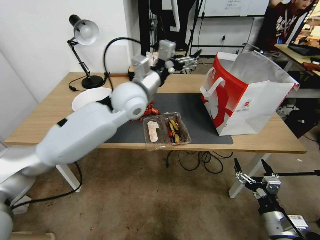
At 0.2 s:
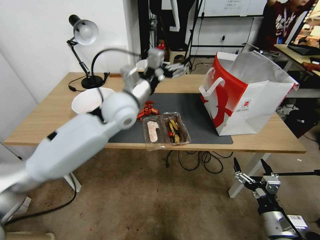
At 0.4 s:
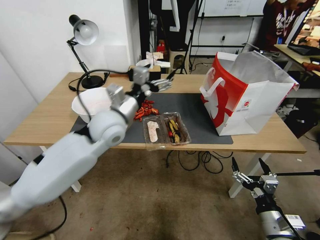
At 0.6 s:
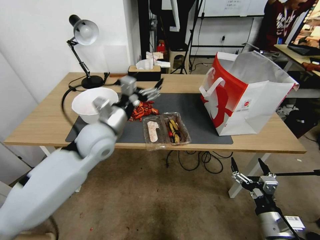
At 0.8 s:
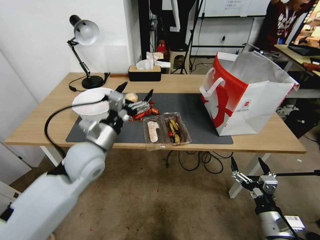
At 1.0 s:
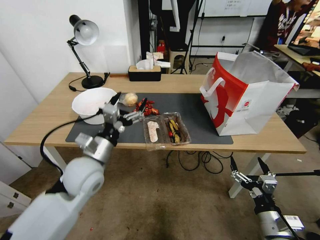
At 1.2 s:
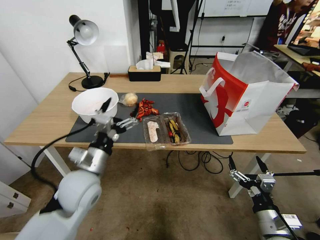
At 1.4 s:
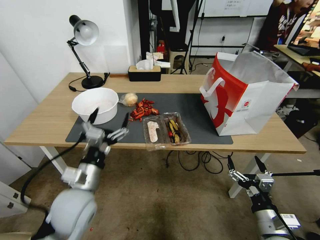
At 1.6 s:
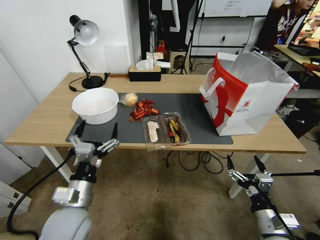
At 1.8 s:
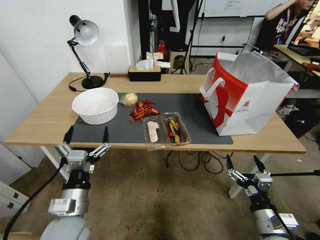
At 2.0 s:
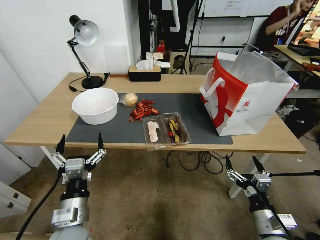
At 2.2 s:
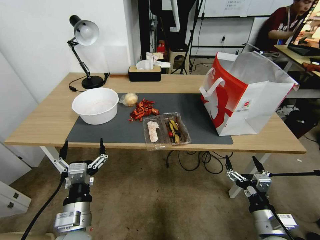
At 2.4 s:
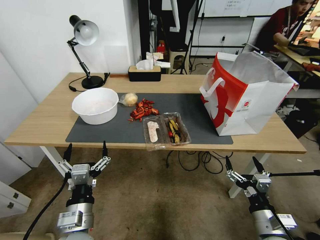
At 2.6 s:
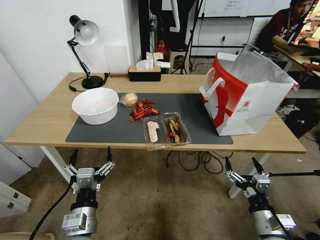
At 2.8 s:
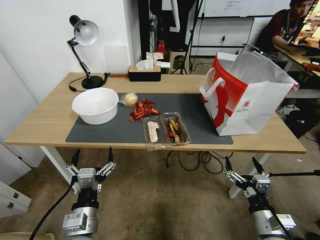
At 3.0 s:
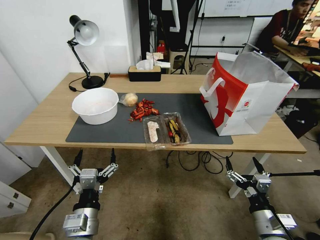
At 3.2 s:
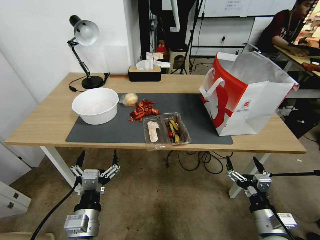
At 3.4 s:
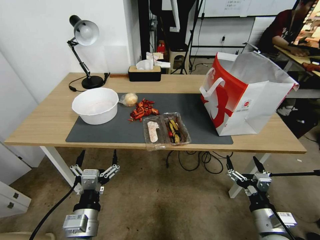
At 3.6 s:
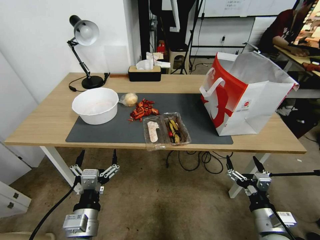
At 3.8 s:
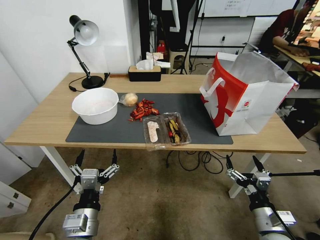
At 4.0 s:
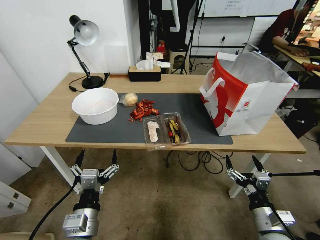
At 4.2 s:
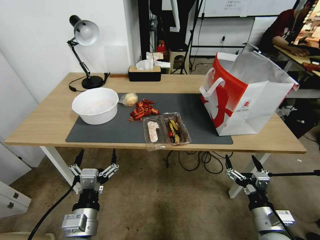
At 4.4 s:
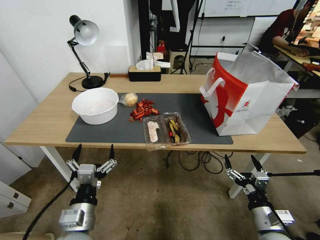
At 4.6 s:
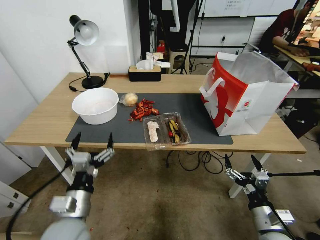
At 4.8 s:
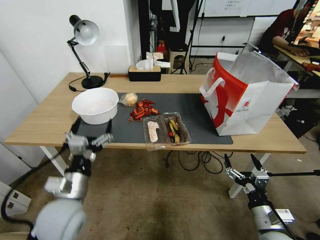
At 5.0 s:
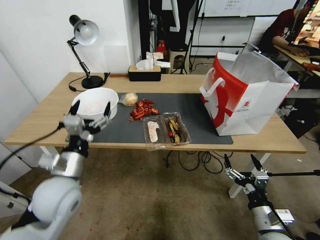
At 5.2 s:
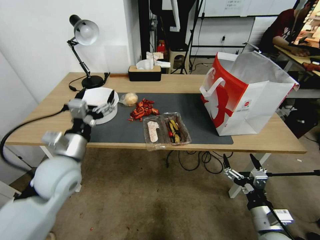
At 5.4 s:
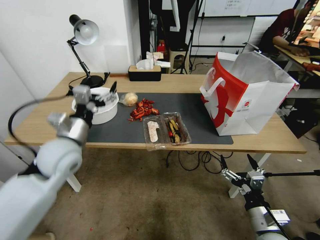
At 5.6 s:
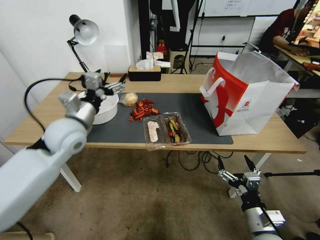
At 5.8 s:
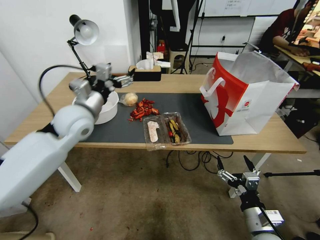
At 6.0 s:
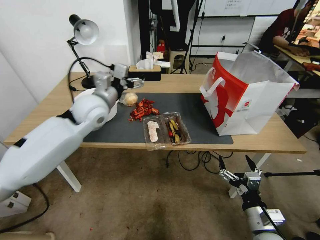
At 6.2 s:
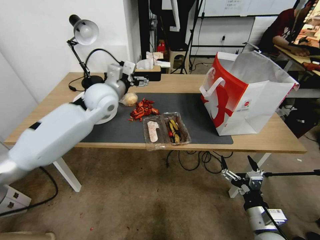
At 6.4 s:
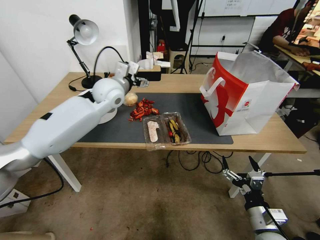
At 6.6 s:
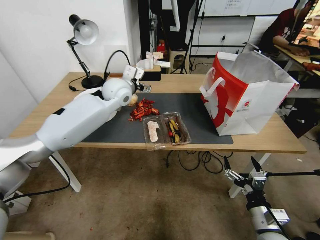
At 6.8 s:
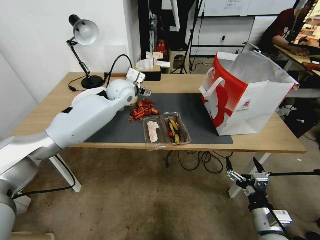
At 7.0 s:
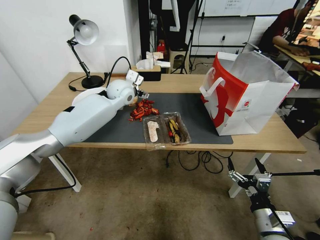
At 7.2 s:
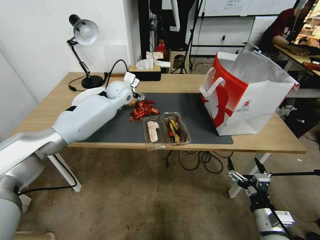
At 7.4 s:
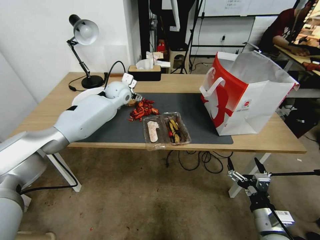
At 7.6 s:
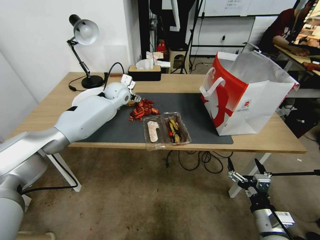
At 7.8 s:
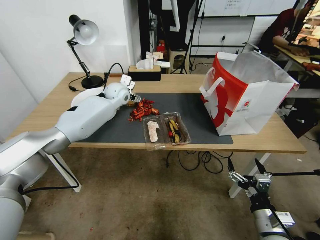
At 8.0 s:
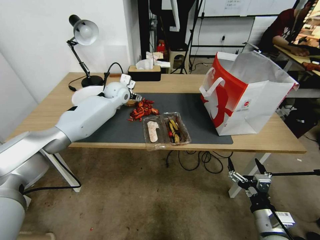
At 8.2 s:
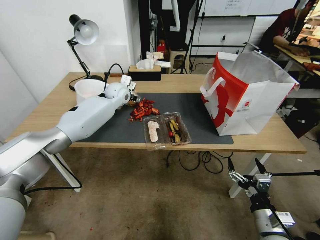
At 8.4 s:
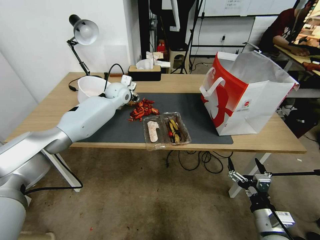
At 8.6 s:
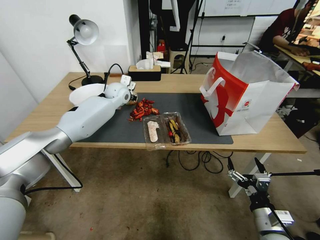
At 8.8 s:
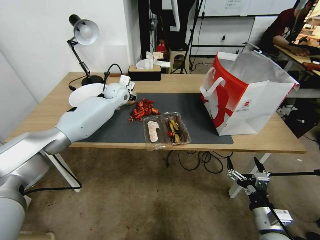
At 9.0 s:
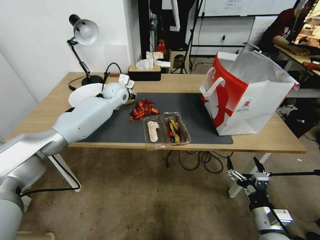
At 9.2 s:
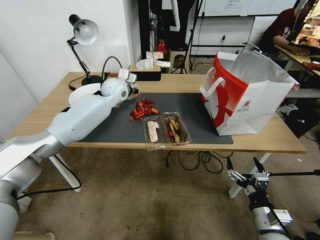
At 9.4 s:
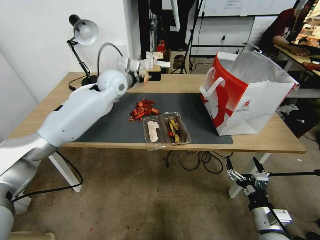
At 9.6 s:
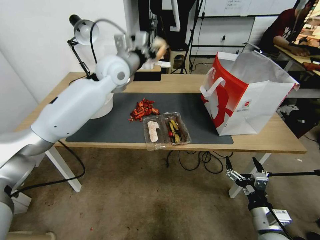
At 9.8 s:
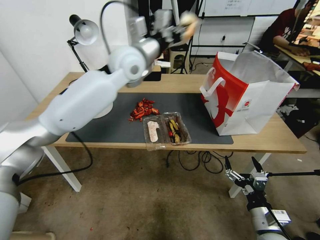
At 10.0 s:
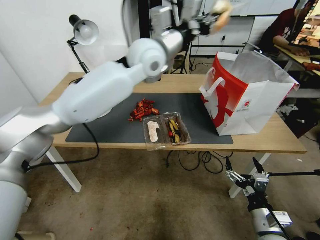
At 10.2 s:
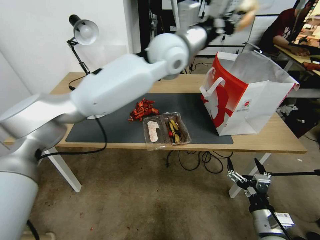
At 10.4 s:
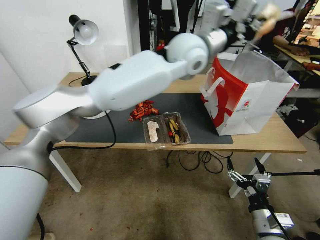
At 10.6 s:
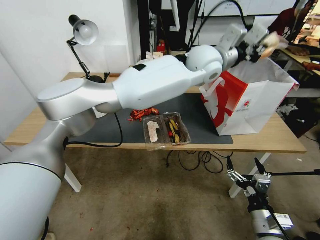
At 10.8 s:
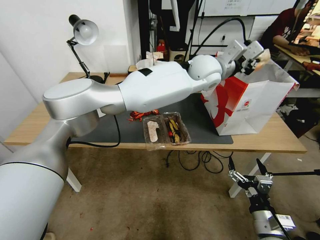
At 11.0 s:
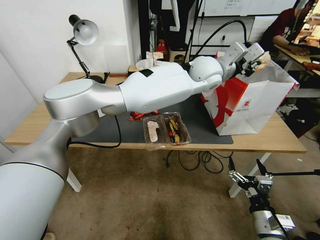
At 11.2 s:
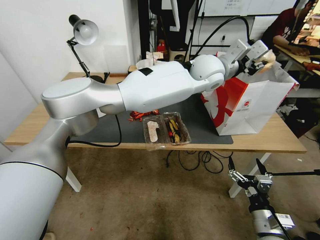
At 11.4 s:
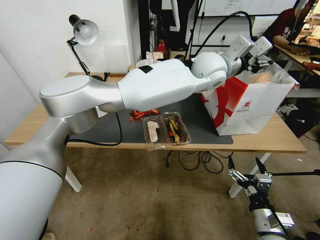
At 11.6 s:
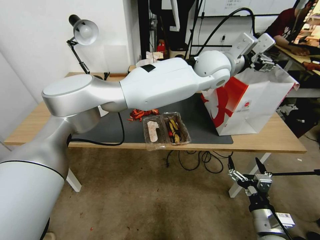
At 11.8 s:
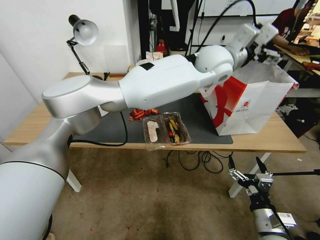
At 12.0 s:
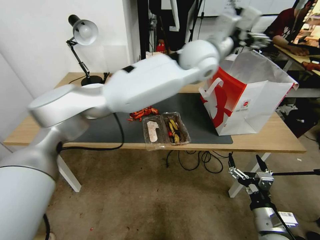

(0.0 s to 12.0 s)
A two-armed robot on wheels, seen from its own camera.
0.0 s - 1.6 s: The left gripper heads backward, downward and to the left, covering roughly 35 cm.
1.6 s - 3.0 s: The left gripper heads backward, covering about 5 cm.
3.0 s - 4.4 s: Both grippers stay about where they are.
4.4 s - 6.0 s: The left gripper shifts approximately 35 cm forward and upward.
6.0 s - 7.6 s: The left gripper goes about 15 cm forward.
7.6 s - 9.0 s: The left gripper closes.
9.0 s - 10.4 s: The left gripper goes some 35 cm to the right, upward and backward.
10.4 s - 12.0 s: The left gripper opens.

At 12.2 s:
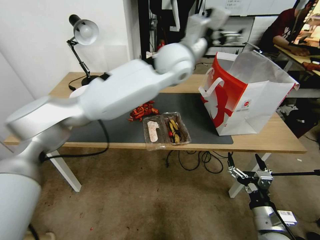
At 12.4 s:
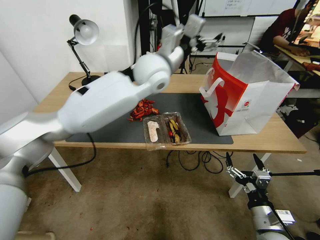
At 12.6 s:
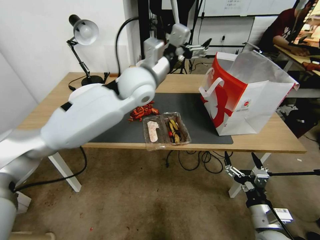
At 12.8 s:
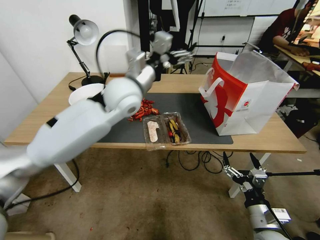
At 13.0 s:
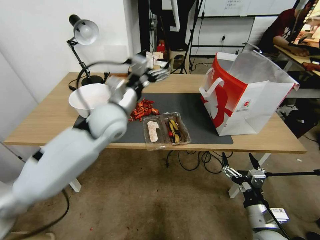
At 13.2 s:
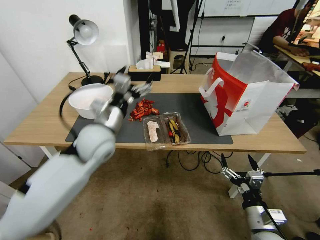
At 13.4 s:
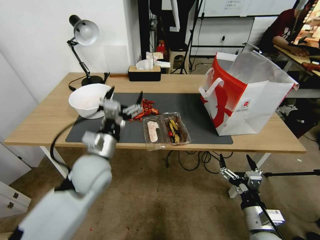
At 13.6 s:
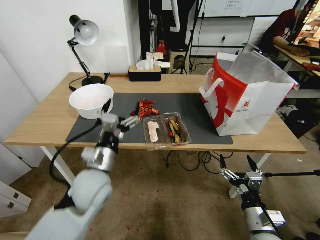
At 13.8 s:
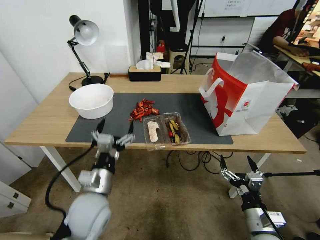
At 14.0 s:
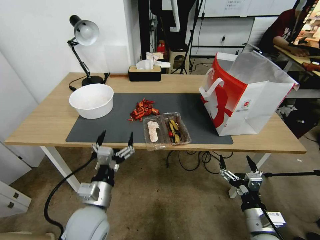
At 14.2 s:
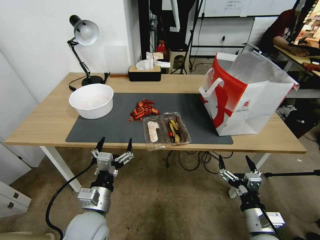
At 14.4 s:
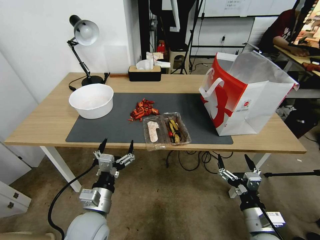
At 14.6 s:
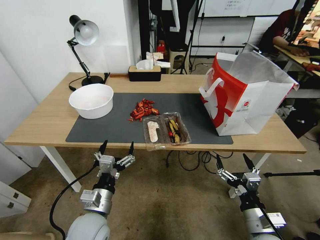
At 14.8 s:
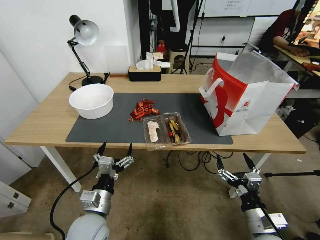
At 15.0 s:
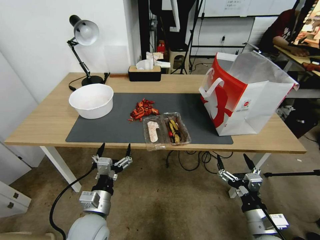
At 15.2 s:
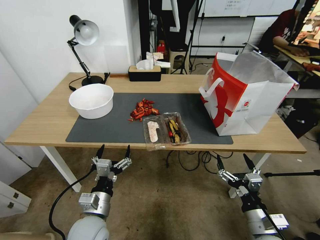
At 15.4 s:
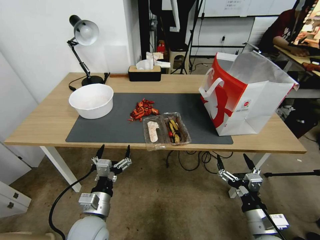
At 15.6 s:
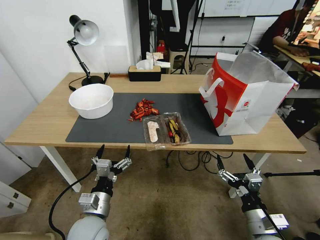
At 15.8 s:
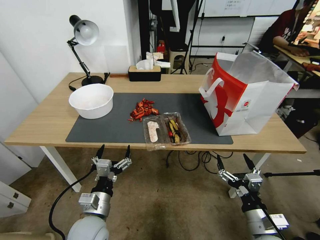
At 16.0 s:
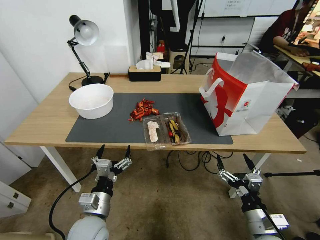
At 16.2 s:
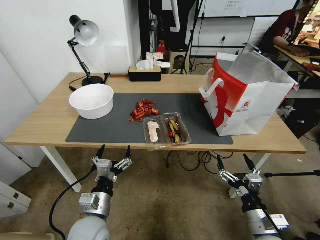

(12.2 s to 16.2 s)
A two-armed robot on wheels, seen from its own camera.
12.2 s - 13.6 s: The left gripper is displaced downward, backward and to the left by roughly 40 cm.
13.6 s - 14.8 s: The left gripper shifts some 10 cm downward and backward.
14.8 s - 16.2 s: Both grippers stay about where they are.

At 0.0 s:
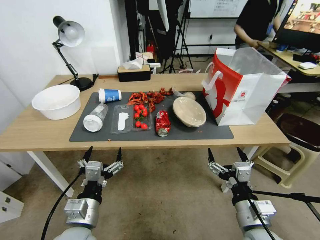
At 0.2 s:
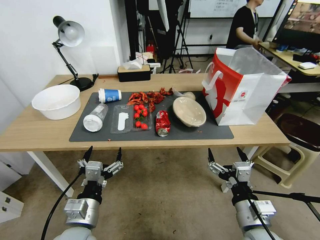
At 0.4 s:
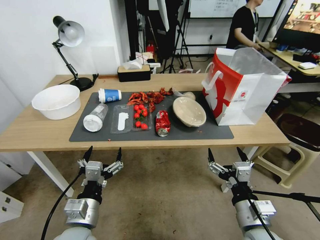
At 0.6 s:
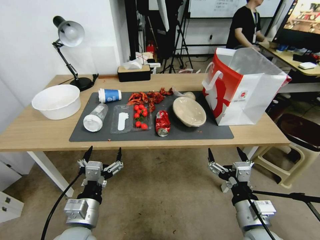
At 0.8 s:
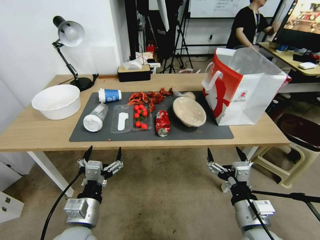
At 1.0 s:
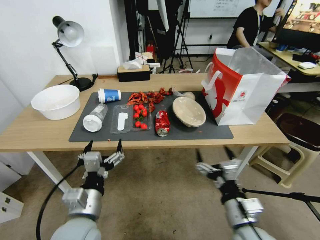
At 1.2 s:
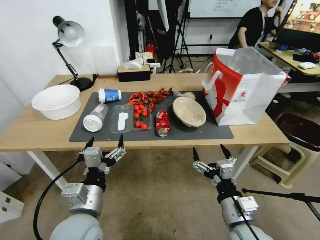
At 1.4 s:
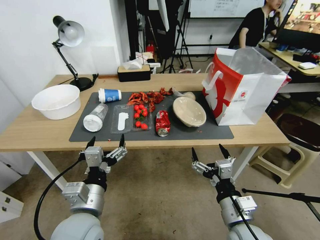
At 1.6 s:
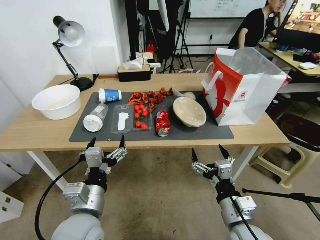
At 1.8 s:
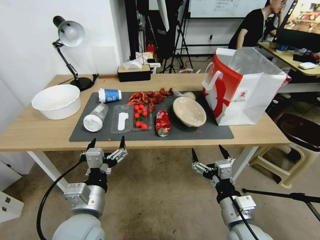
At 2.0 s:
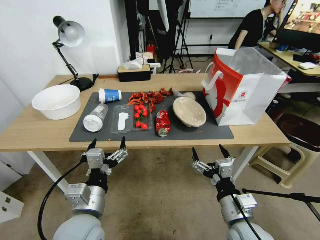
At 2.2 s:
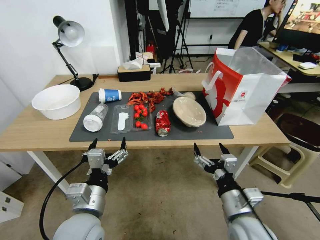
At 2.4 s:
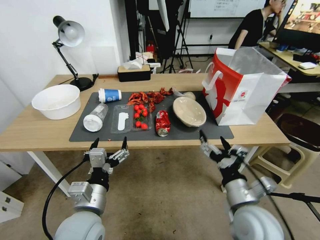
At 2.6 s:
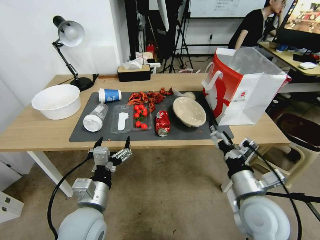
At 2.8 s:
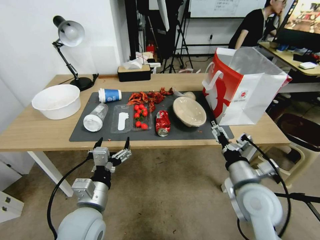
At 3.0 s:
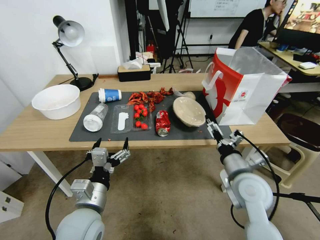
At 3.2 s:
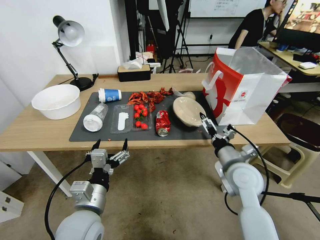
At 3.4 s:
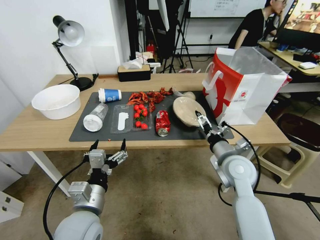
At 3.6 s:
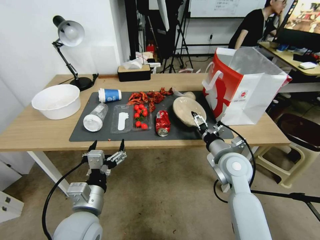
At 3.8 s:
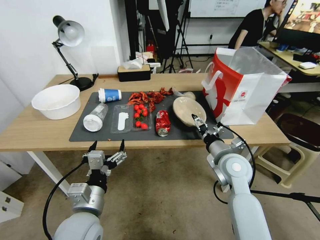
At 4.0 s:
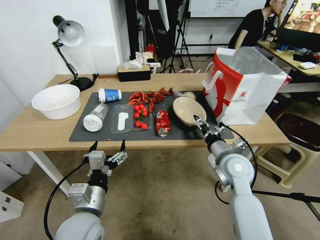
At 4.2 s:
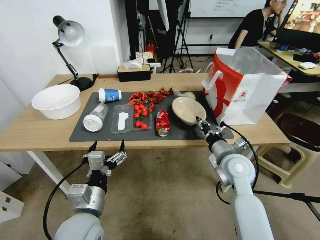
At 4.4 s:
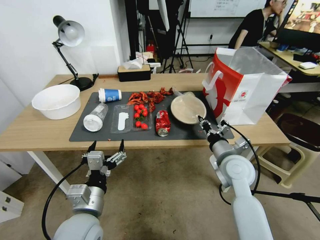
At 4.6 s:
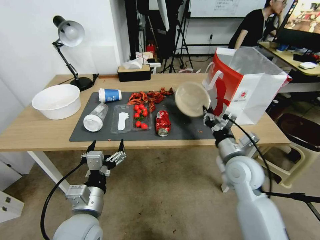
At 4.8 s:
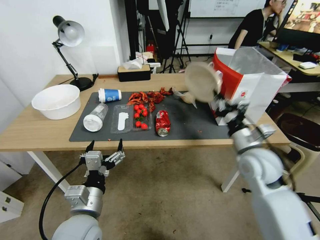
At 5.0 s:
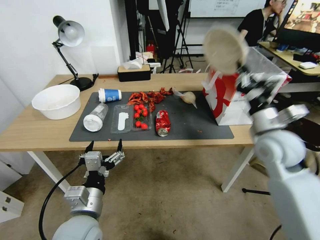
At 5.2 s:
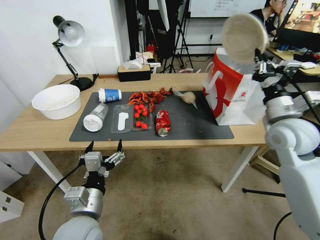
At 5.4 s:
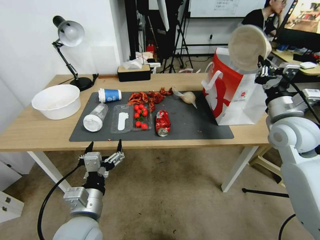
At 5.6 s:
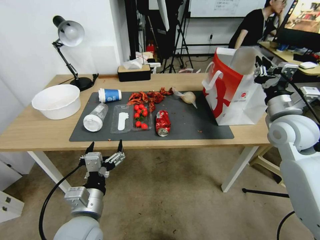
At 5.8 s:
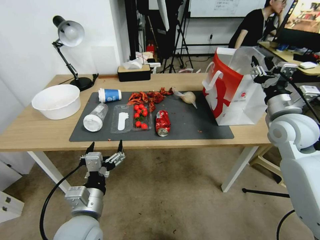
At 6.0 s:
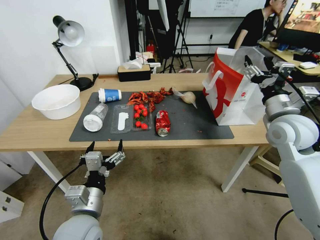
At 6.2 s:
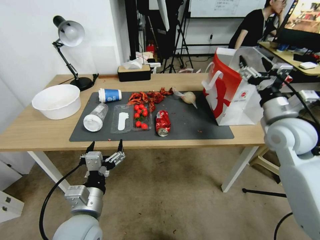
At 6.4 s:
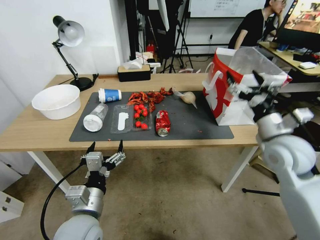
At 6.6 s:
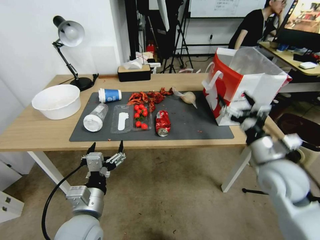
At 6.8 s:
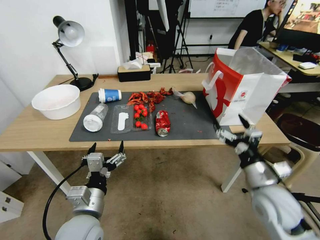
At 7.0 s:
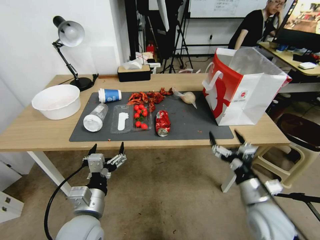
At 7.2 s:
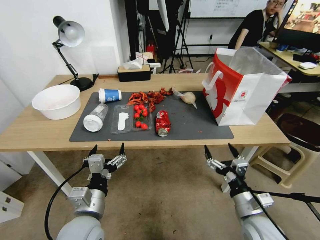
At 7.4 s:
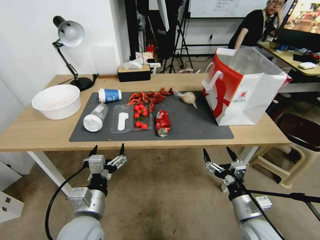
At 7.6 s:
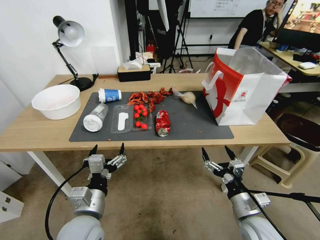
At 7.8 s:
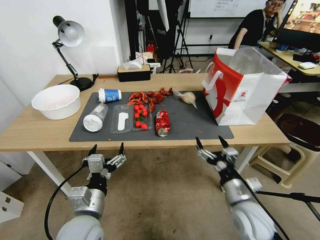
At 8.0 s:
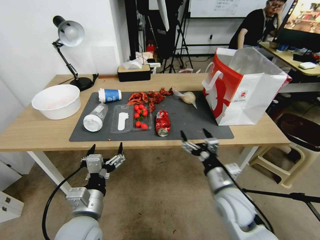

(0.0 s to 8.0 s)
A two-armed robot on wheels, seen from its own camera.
1.6 s - 3.2 s: The right gripper goes approximately 15 cm forward.
3.2 s - 4.8 s: The right gripper closes.
4.8 s - 6.4 s: The right gripper travels upward and to the right by approximately 10 cm, and opens.
6.4 s - 8.0 s: The right gripper shifts roughly 20 cm downward, to the left and backward.
